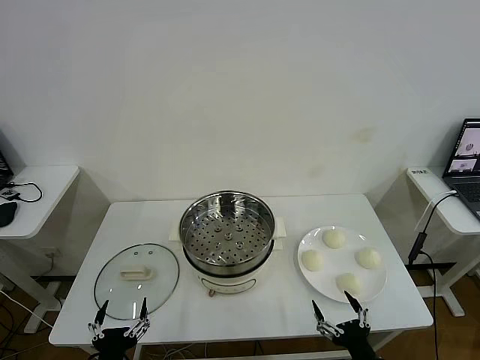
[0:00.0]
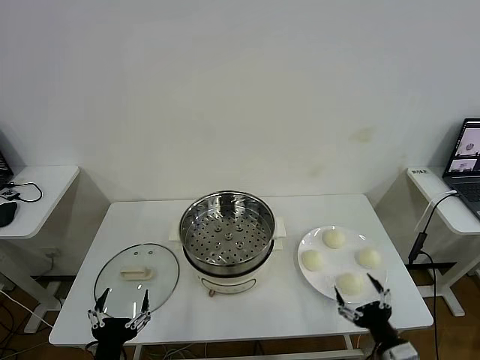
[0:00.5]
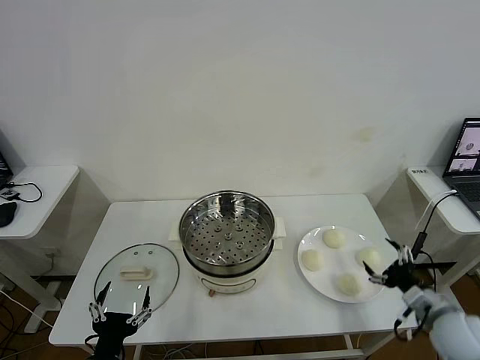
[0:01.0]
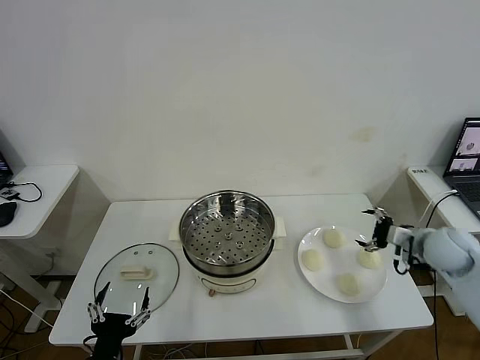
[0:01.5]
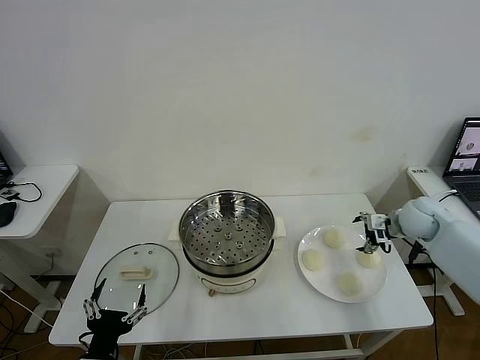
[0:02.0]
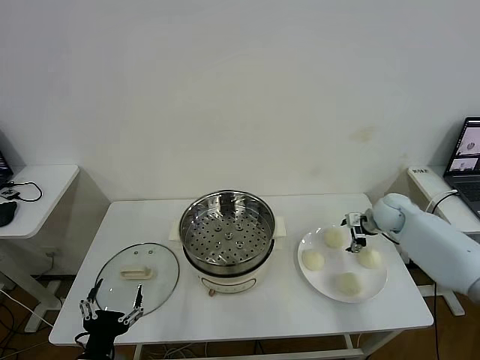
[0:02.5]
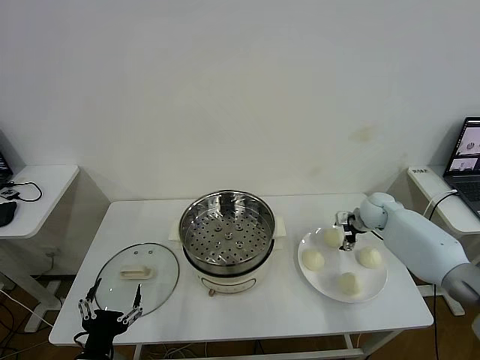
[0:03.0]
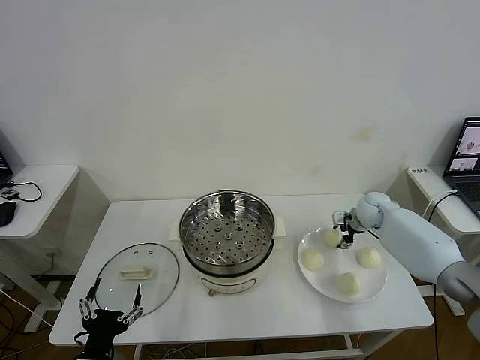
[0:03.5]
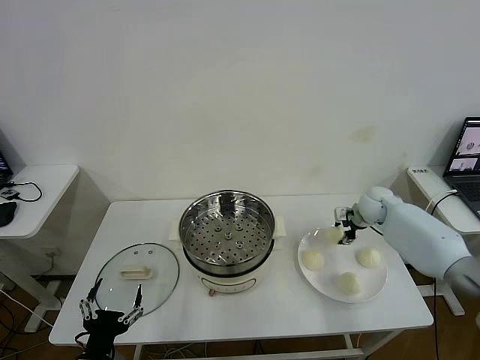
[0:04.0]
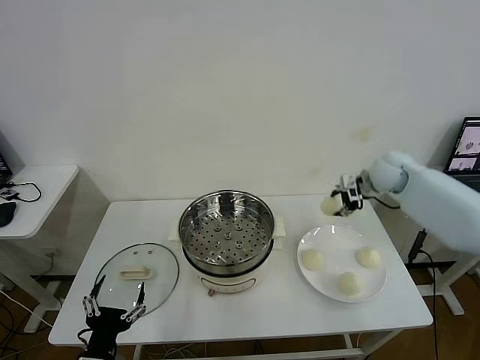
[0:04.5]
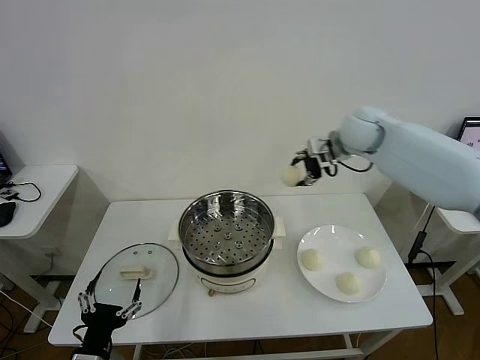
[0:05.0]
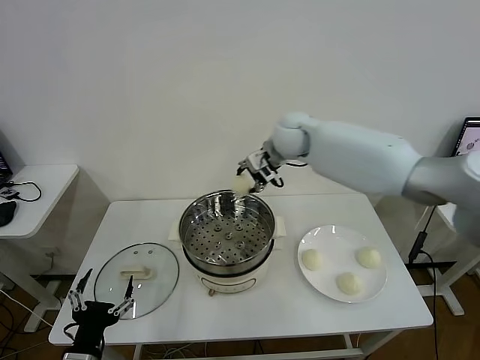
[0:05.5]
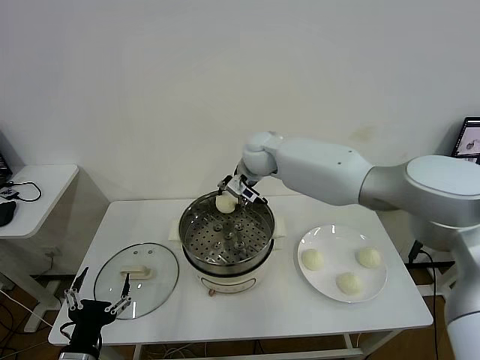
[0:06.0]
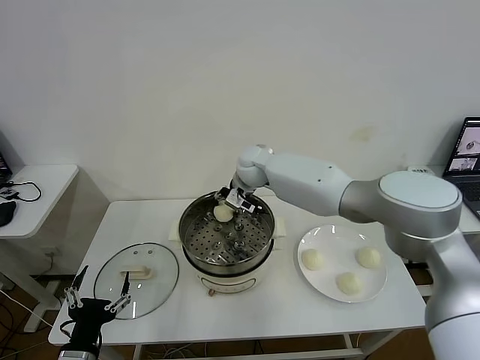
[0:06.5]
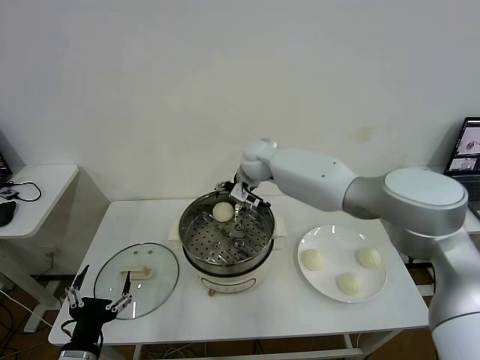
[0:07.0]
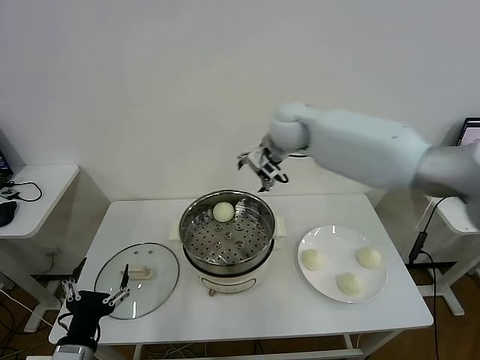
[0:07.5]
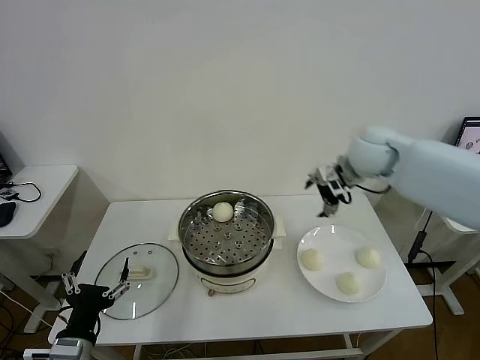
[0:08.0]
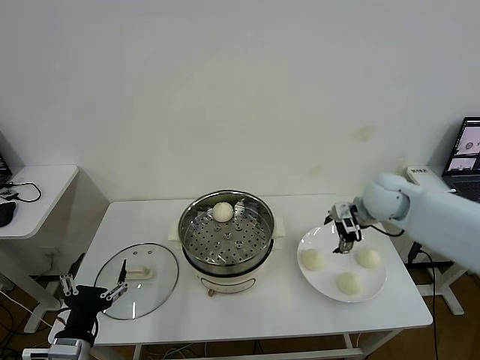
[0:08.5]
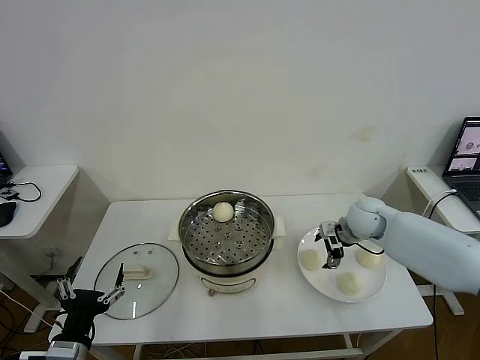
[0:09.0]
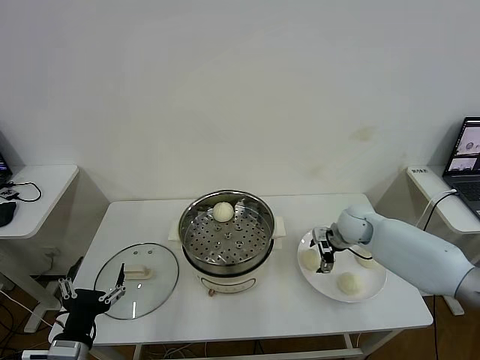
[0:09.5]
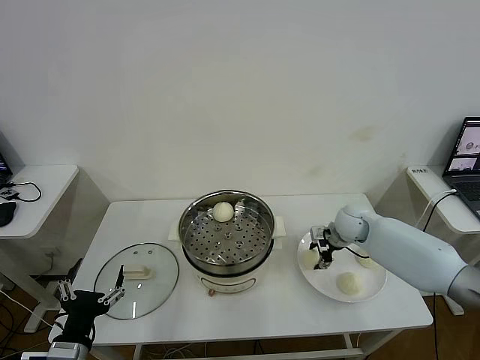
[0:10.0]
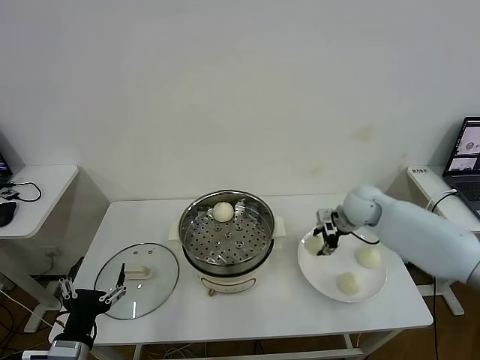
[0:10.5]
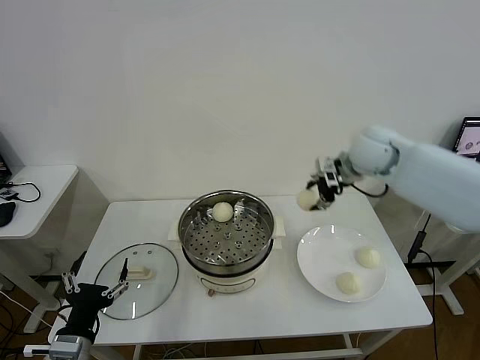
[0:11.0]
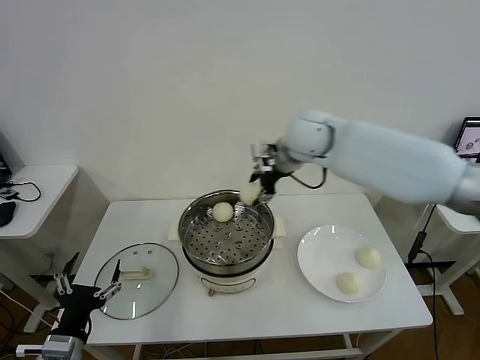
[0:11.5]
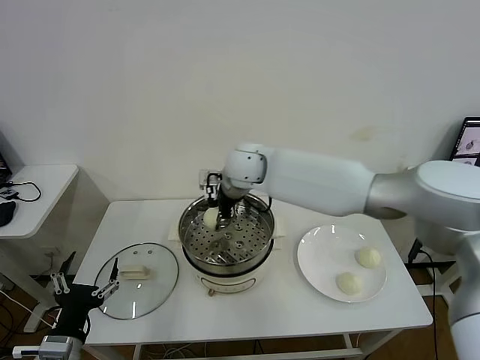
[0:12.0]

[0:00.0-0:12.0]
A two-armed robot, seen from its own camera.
Task of the whole recording: take steamed baozi put them in steamer then cover it.
Step, 0.0 to 3.5 s: Grasp the baozi in the plate with right gripper.
Step, 4.0 to 6.5 s: Place the baozi on the steamer with right gripper.
Step, 7.0 to 10.0 s: Grasp the baozi in the plate with right gripper.
2.0 to 4.0 s: The right gripper shifts approximately 10 cm forward and to the left, and closes up.
4.0 to 6.0 s: The right gripper travels to the left by approximately 35 cm.
6.0 to 8.0 s: The right gripper goes approximately 25 cm to the right, and opens.
8.0 to 10.0 s: The right gripper travels downward by about 20 cm, and closes up.
10.0 to 12.0 s: The right gripper shifts some 35 cm to the left and upward.

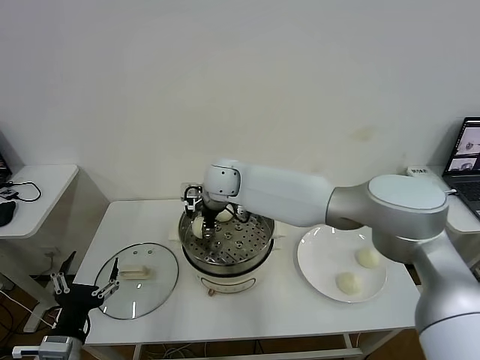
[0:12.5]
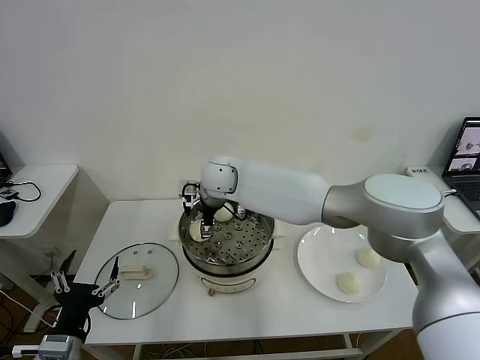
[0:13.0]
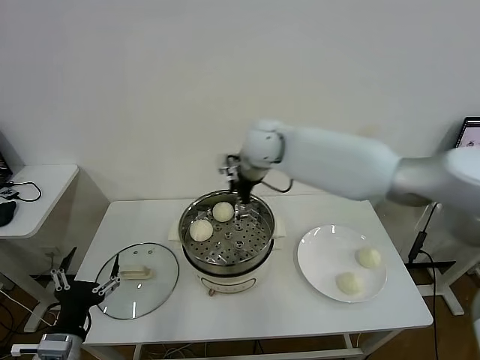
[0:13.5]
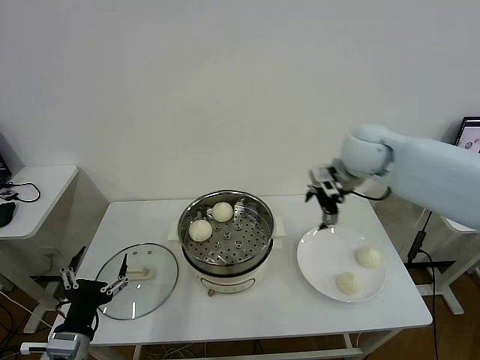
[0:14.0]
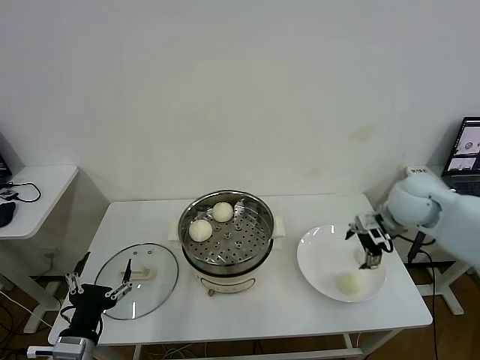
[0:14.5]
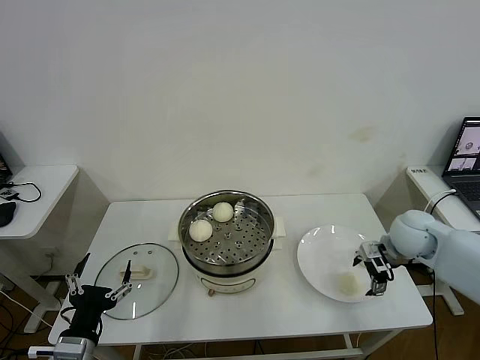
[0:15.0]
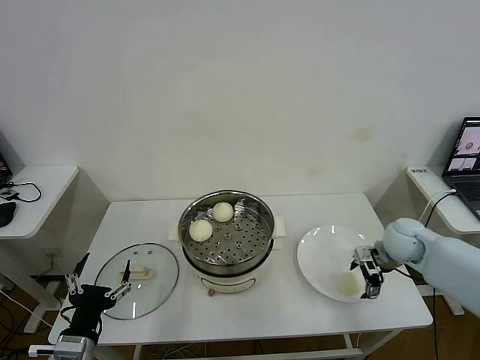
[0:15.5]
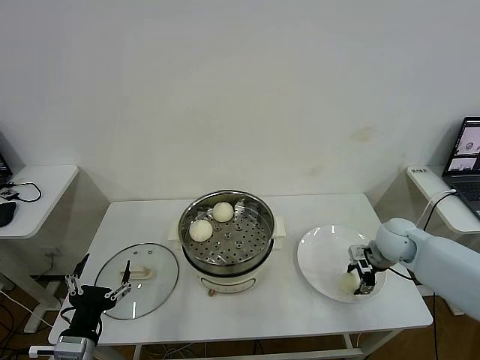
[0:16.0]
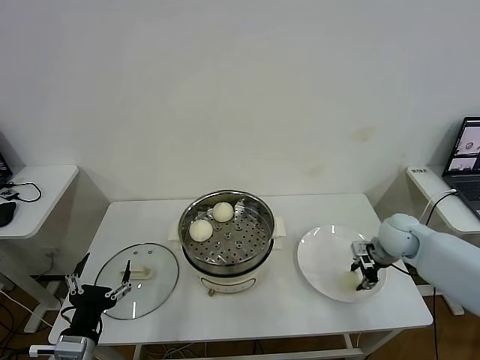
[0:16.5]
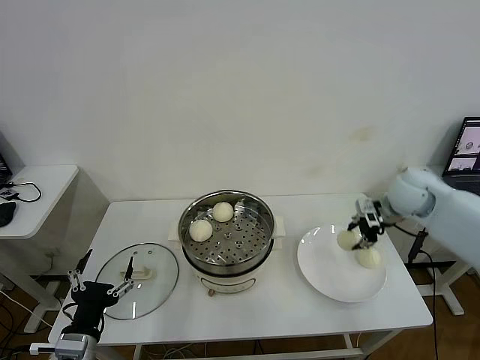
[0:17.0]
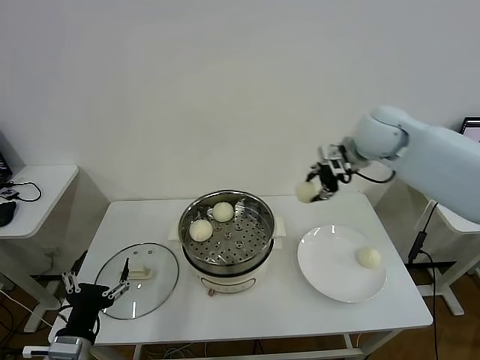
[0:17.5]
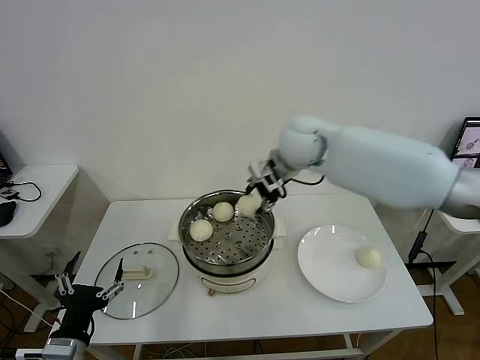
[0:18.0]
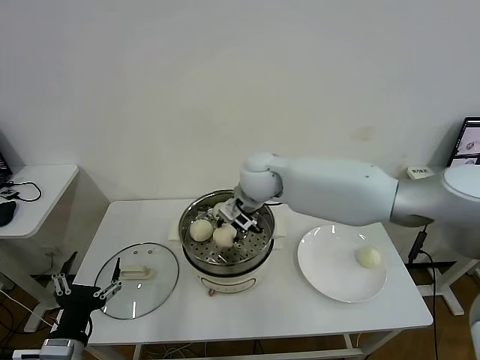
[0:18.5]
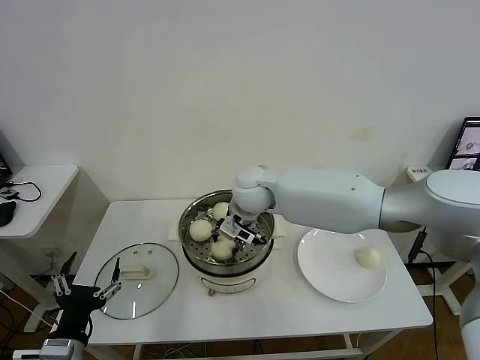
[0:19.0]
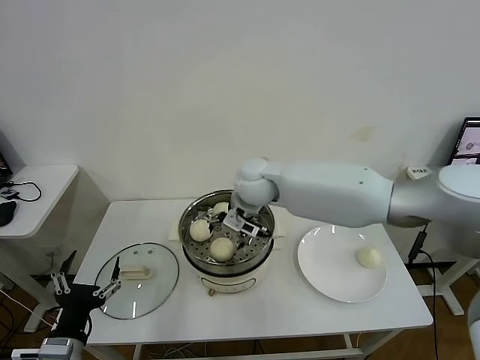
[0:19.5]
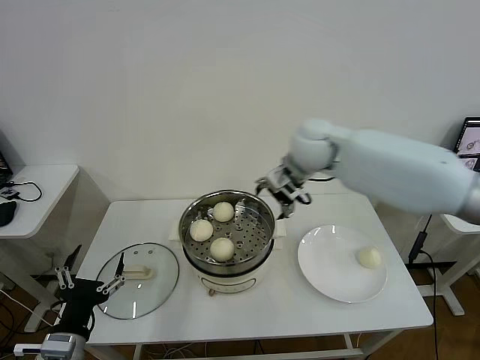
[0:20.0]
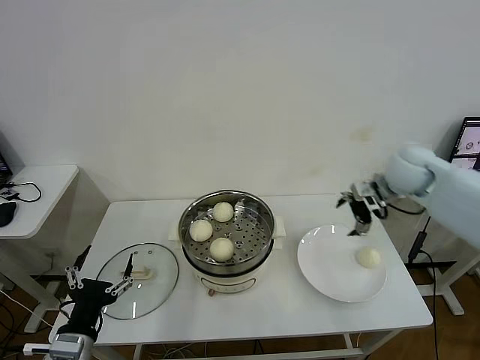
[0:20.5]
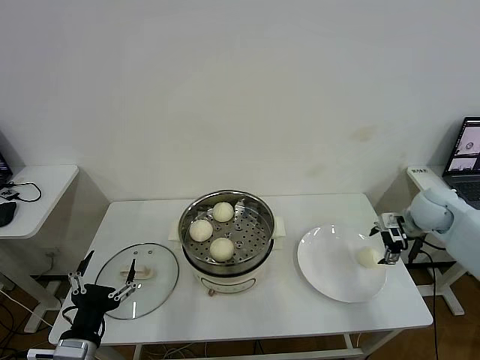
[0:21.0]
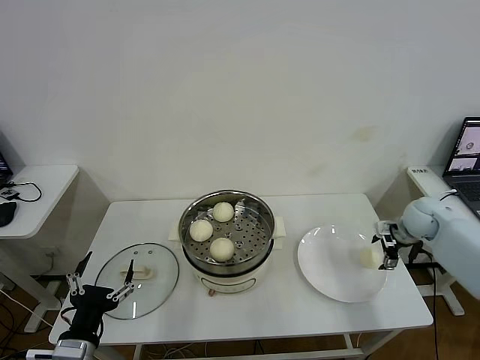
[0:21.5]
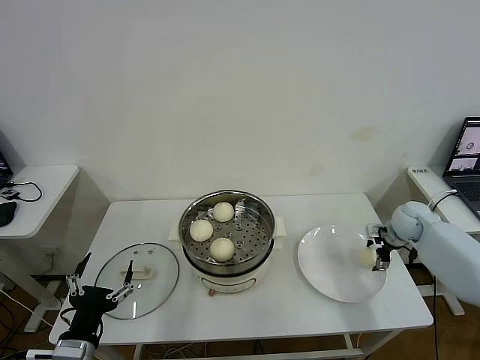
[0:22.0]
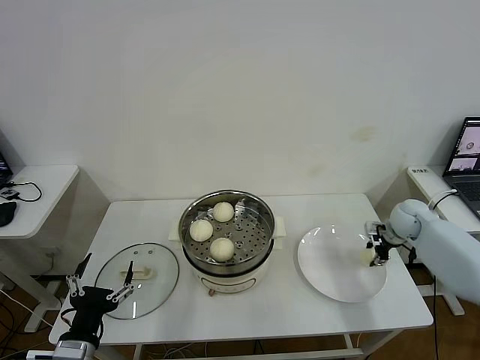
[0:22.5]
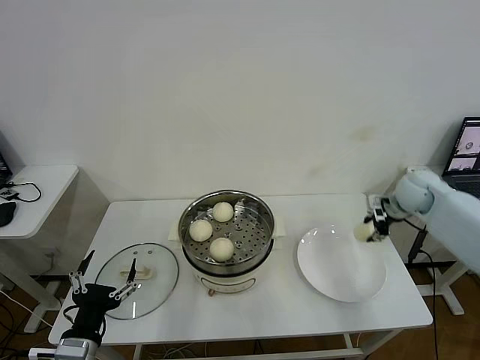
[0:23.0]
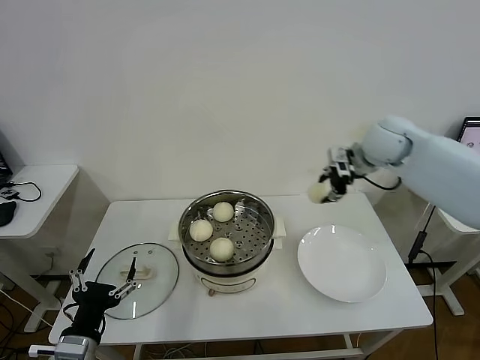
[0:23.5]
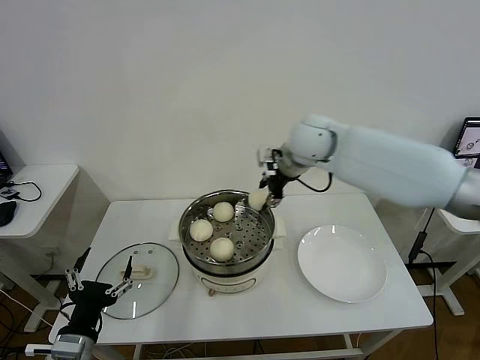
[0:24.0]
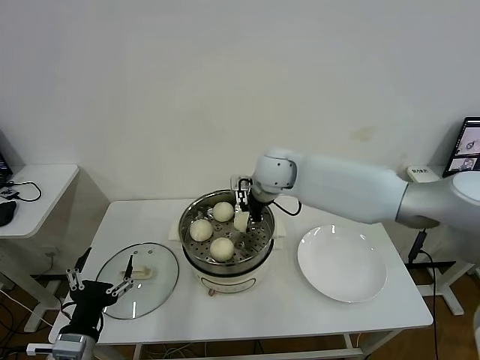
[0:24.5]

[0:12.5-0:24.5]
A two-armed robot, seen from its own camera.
Task of the whole recording: take steamed baozi put them in steamer then cover it.
Step, 13.5 to 16.5 s: Grasp the baozi in the plate with right gripper.
Step, 17.0 to 19.0 s: Place the baozi on the steamer with right gripper.
Step, 20.0 to 22.5 s: Grasp the baozi in the plate with right gripper.
12.5 to 14.5 s: The right gripper moves to the right, some 40 cm, and opens its fingers.
14.5 to 16.5 s: The right gripper is displaced downward by some 10 cm, and closes.
16.5 to 18.5 s: The right gripper is displaced to the left by some 35 cm.
18.5 to 20.5 s: The right gripper shifts roughly 30 cm to the right, and opens its fingers.
20.5 to 22.5 s: The right gripper moves downward and to the right, some 20 cm, and closes up.
22.5 to 24.5 s: The right gripper goes about 40 cm to the left and upward.

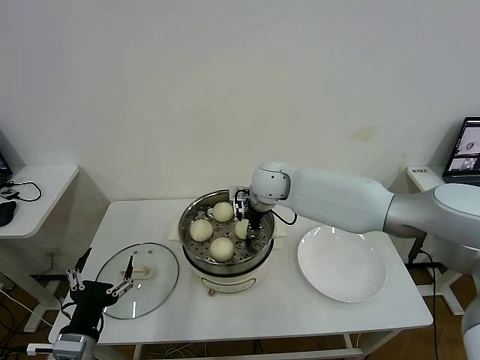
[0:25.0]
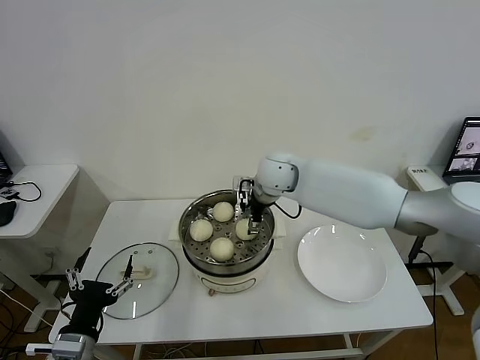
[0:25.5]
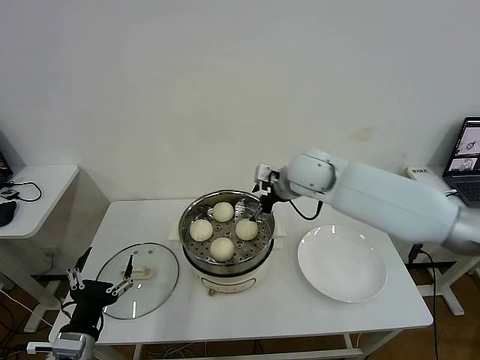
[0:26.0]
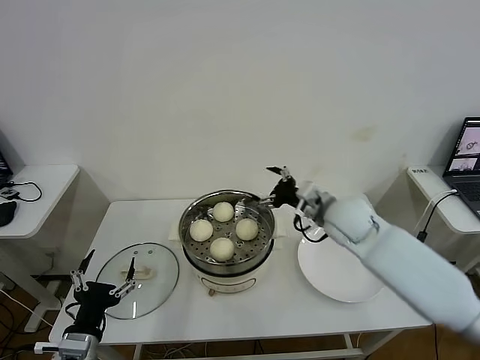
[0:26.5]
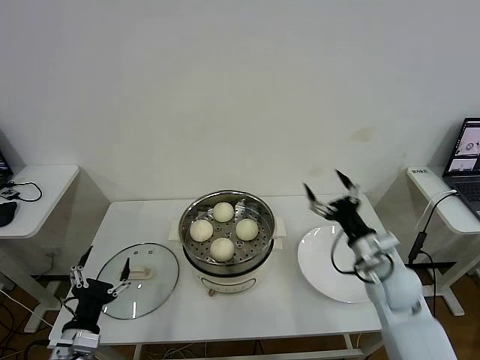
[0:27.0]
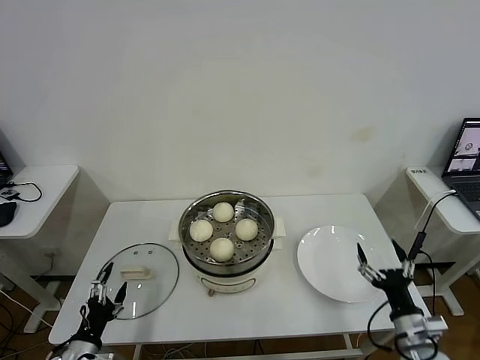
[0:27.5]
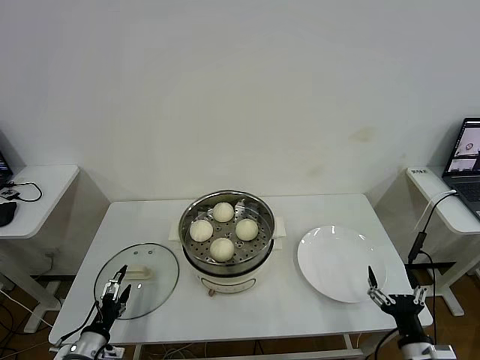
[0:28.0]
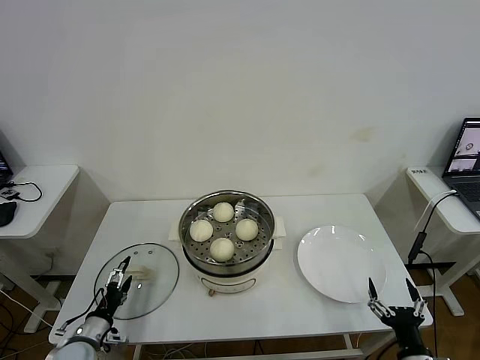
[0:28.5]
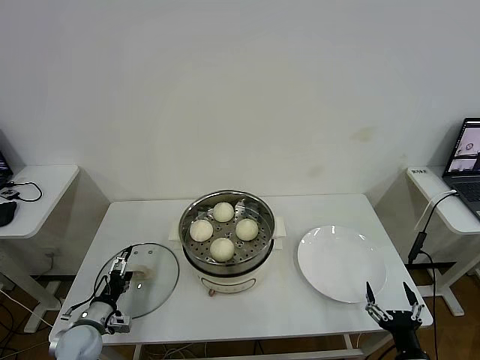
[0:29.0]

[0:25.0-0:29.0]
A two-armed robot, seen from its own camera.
Task of the whole recording: take steamed baozi put them in steamer then cover it.
25.0 to 27.0 s: The right gripper heads to the right, backward and downward, covering about 35 cm, and opens up.
27.0 to 29.0 s: The right gripper moves backward and downward, about 25 cm; the left gripper is displaced downward, forward and to the left by approximately 15 cm.
